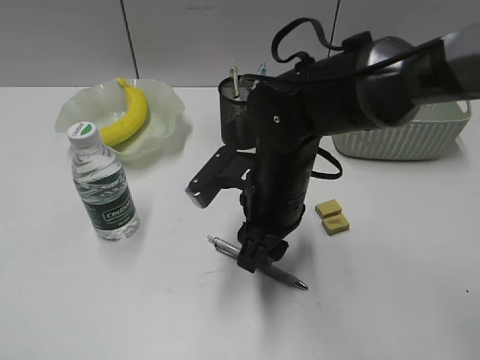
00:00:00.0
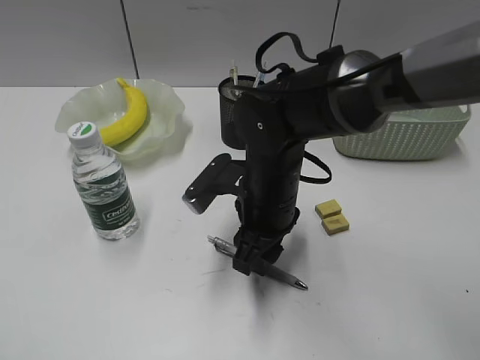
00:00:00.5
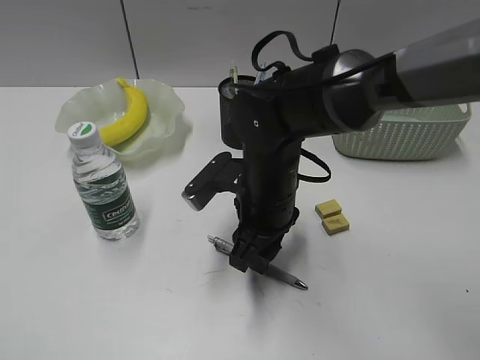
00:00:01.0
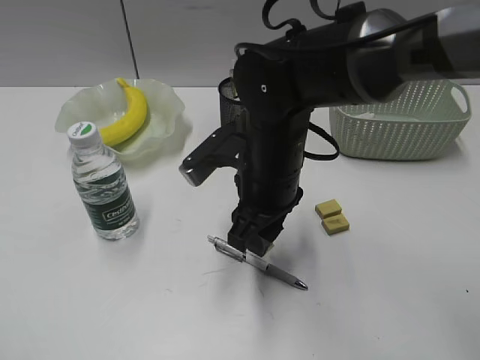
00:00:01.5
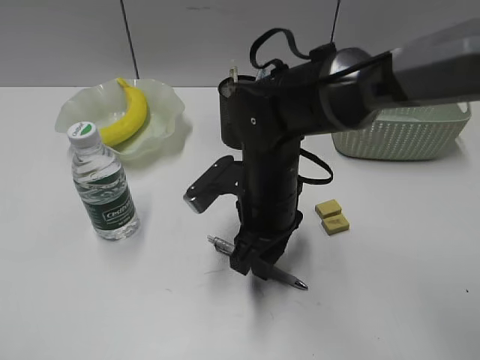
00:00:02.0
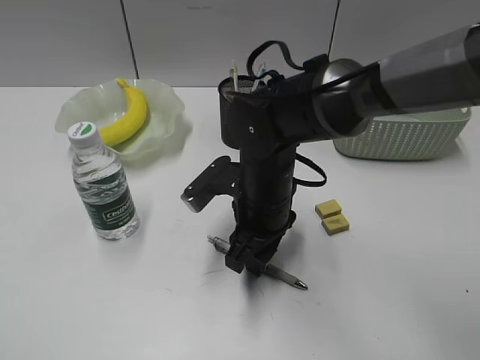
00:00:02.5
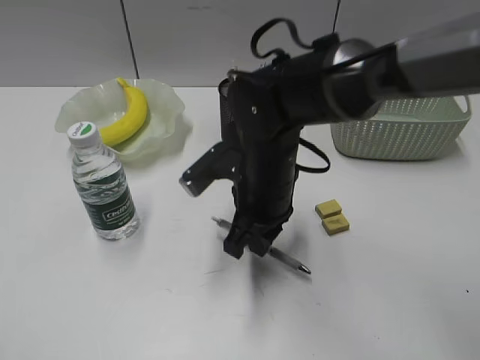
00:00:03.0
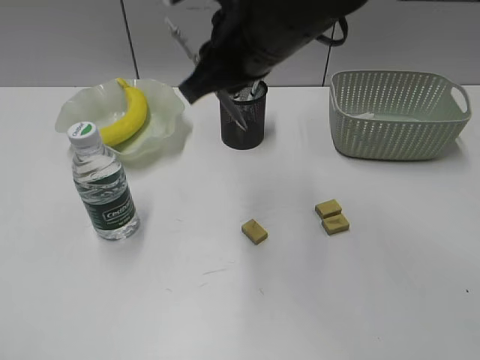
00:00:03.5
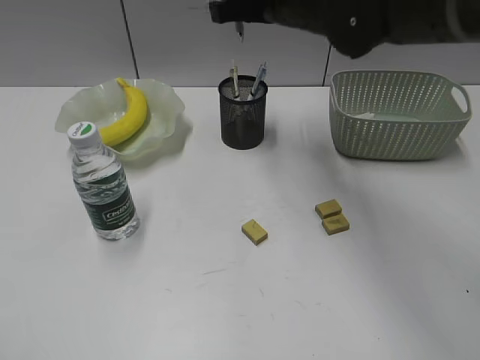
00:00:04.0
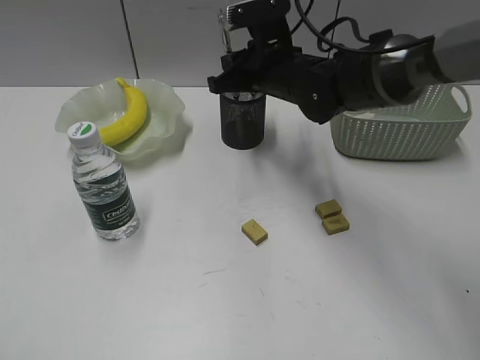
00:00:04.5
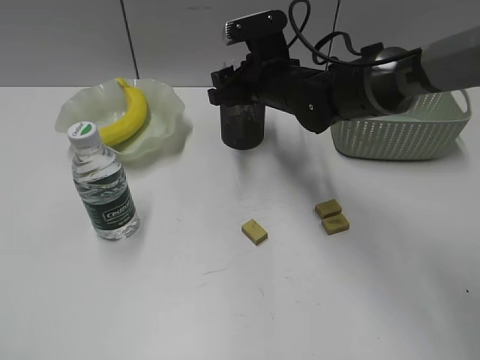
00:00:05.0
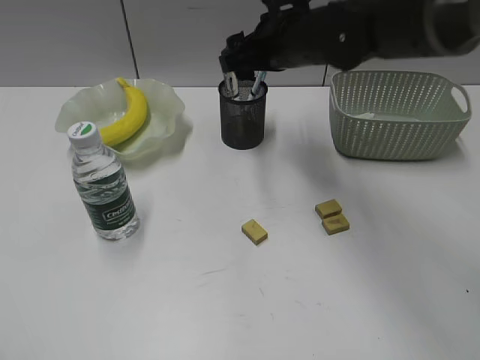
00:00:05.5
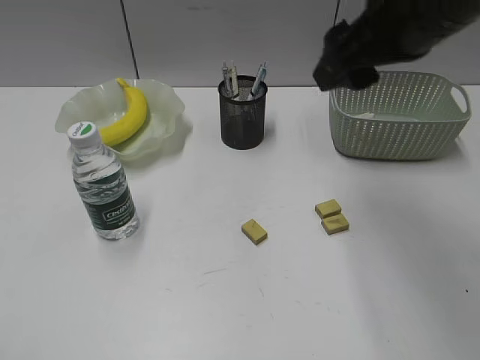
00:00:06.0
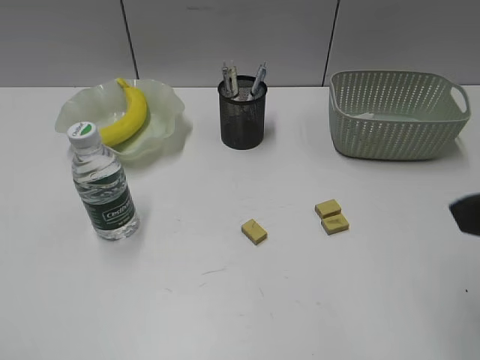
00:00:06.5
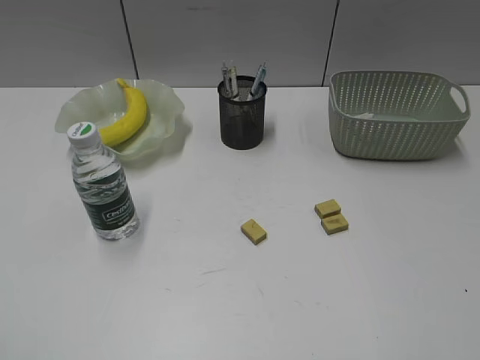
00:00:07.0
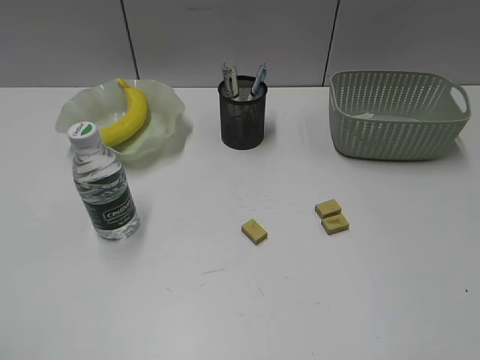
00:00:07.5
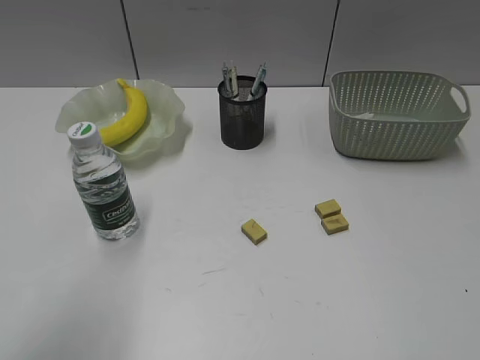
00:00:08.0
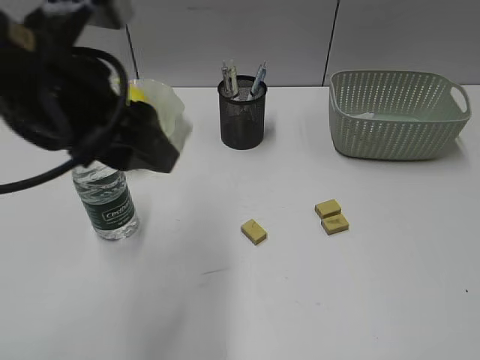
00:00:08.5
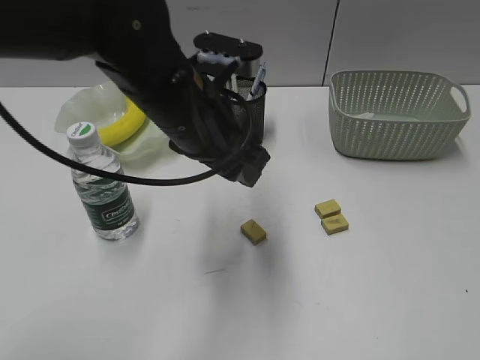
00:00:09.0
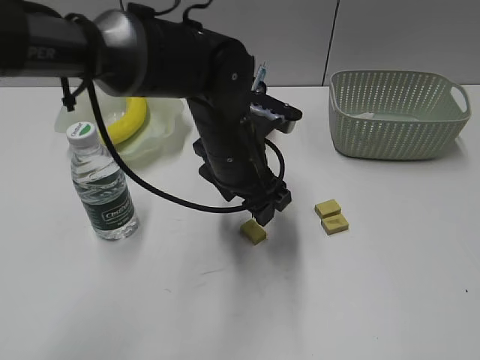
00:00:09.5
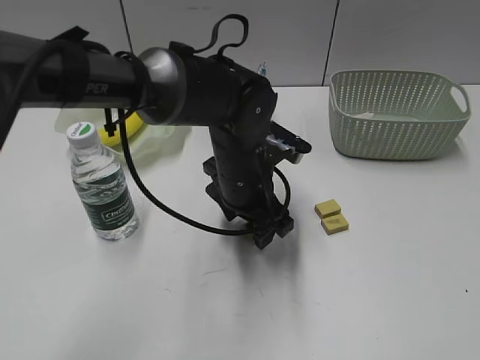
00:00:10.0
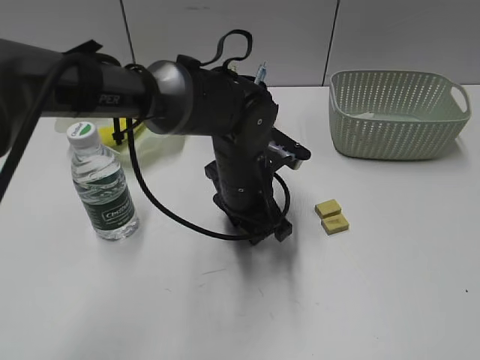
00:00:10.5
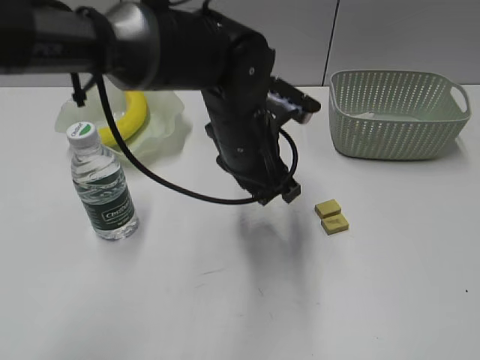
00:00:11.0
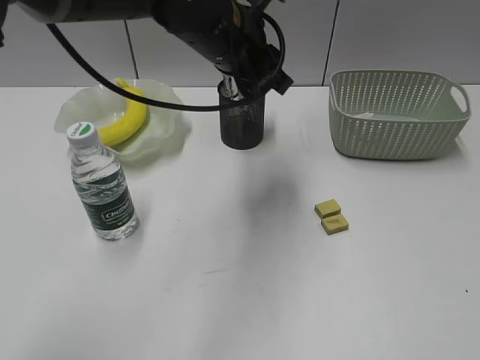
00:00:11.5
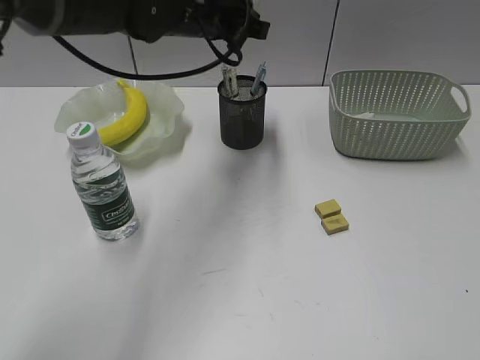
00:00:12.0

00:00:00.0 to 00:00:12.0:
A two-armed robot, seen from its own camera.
Step, 00:00:00.0 to 00:00:02.5: Grasp the gray pen with right gripper.
Step, 00:00:03.0 to 00:00:05.0: Place the gray pen in pen holder with right gripper.
Step, 00:00:05.5 to 00:00:10.5: Grasp the eraser with left gripper.
00:00:00.0 to 00:00:02.0: There are only small adjustments of the grippers.
00:00:02.0 to 00:00:04.0: The right gripper is displaced upward and forward by roughly 20 cm, and closes.
00:00:04.0 to 00:00:06.0: The right gripper is displaced backward and to the right by approximately 15 cm, reaches roughly 10 cm downward, then returns, and opens its fingers.
00:00:06.0 to 00:00:08.0: The left gripper travels forward and to the right by some 15 cm. The right gripper moves backward and to the right, about 35 cm.
00:00:08.0 to 00:00:10.0: The left gripper travels to the right, forward and downward by about 40 cm, and opens.
00:00:10.0 to 00:00:12.0: The left gripper moves upward, forward and to the left, some 20 cm, and closes its fingers.

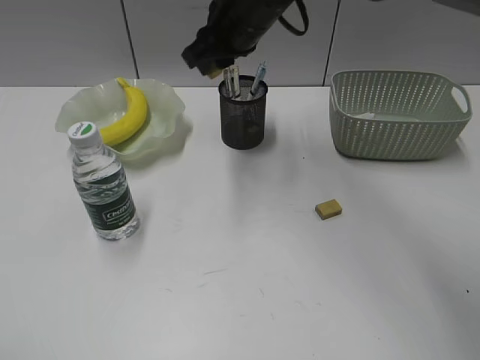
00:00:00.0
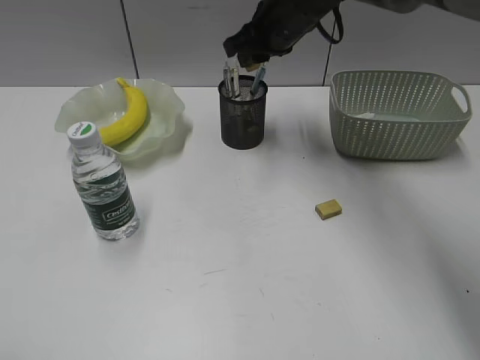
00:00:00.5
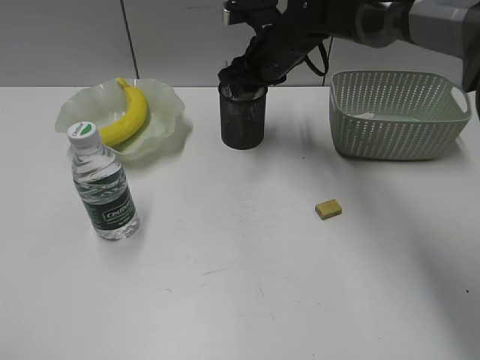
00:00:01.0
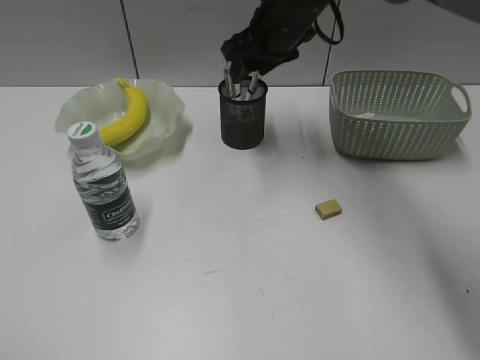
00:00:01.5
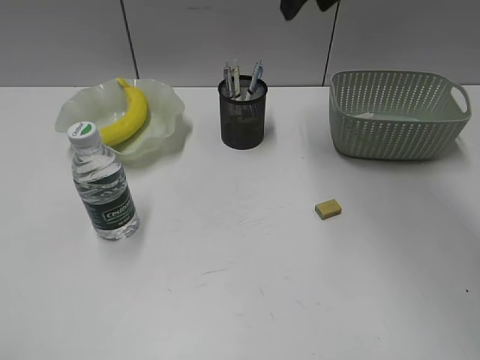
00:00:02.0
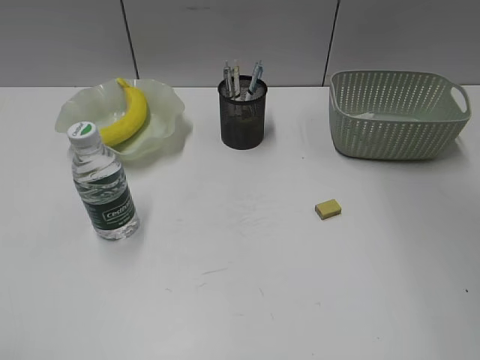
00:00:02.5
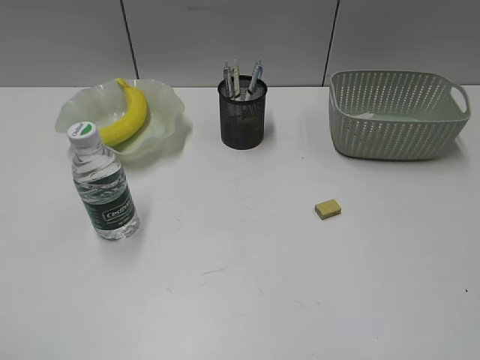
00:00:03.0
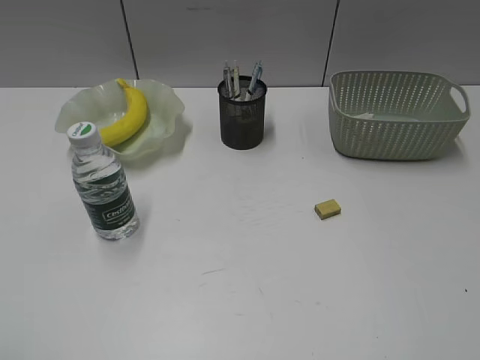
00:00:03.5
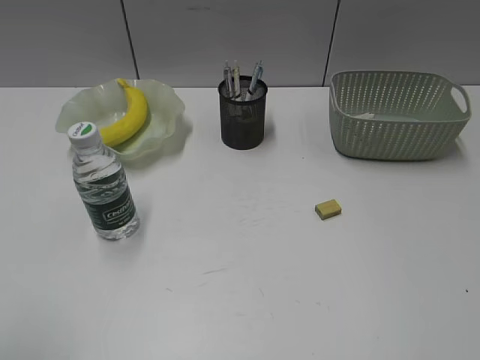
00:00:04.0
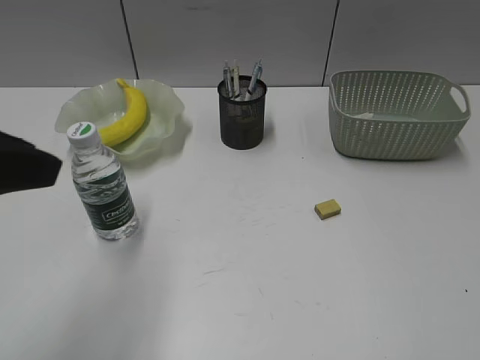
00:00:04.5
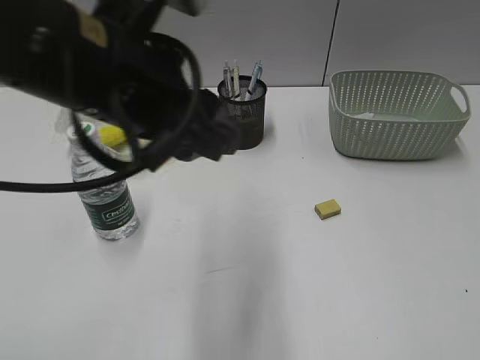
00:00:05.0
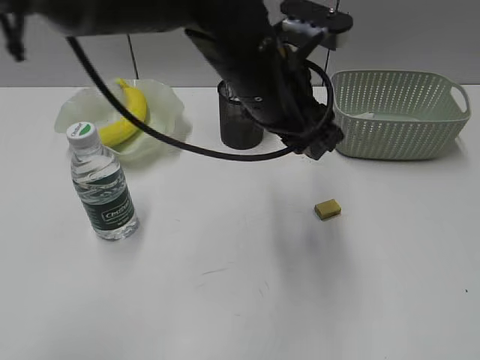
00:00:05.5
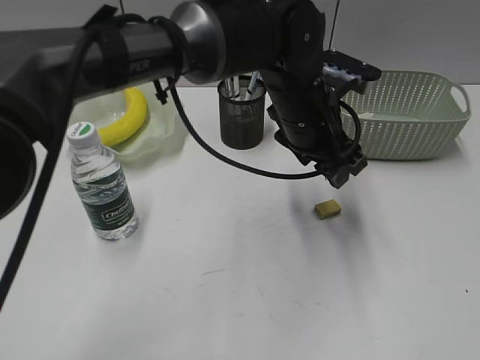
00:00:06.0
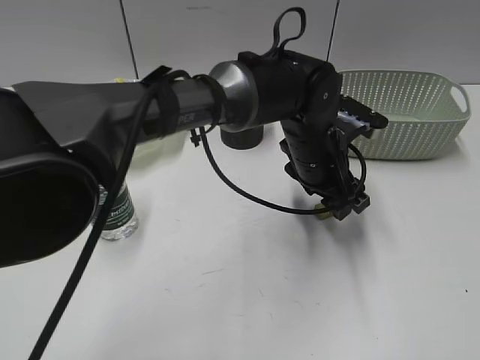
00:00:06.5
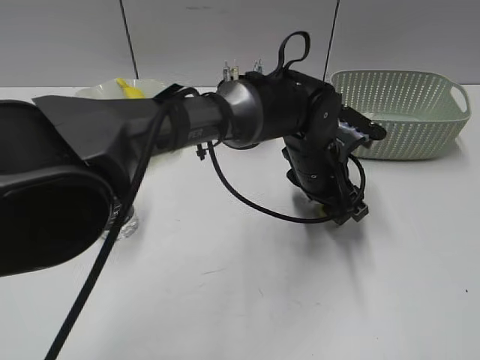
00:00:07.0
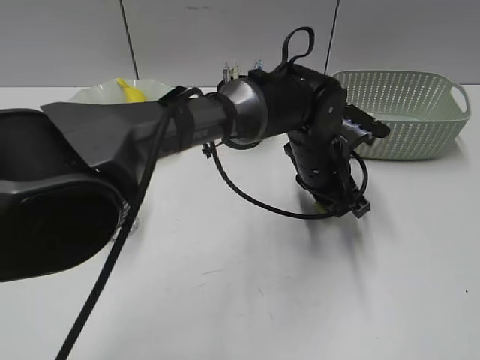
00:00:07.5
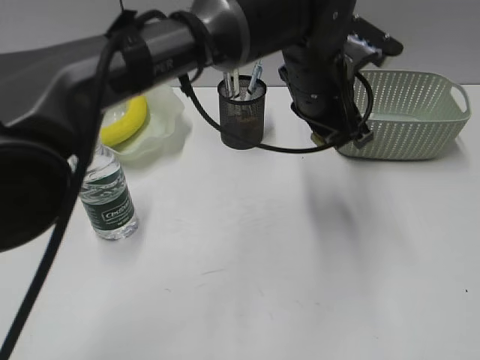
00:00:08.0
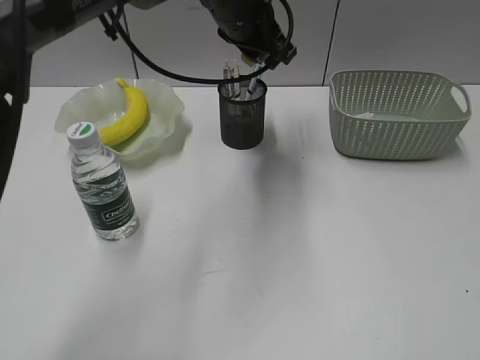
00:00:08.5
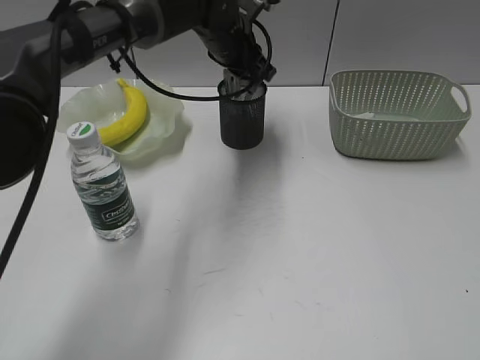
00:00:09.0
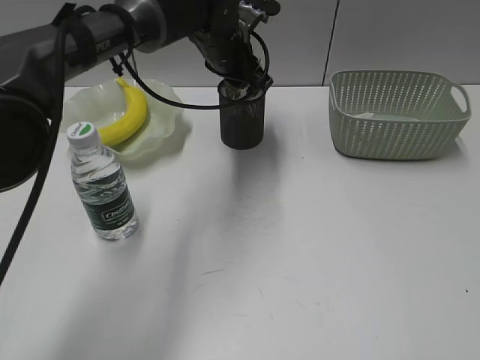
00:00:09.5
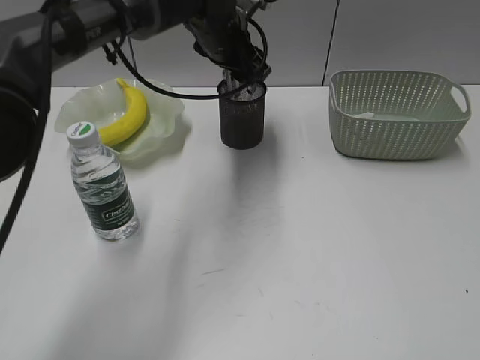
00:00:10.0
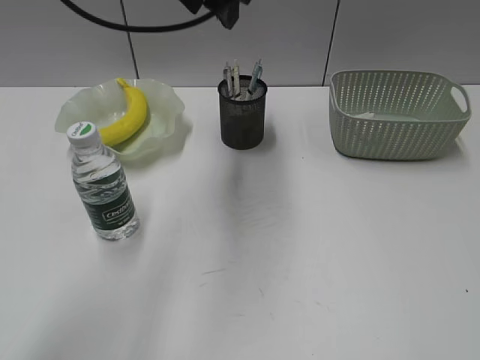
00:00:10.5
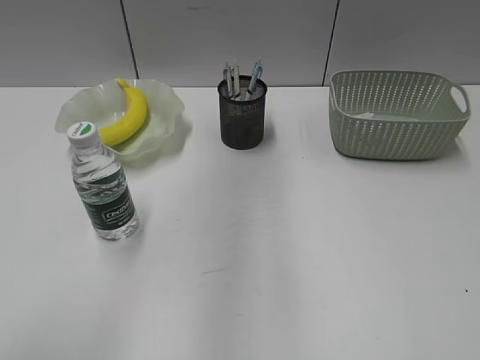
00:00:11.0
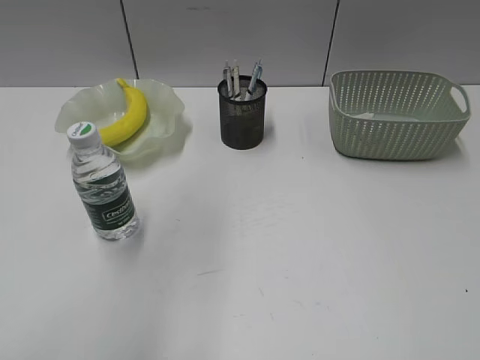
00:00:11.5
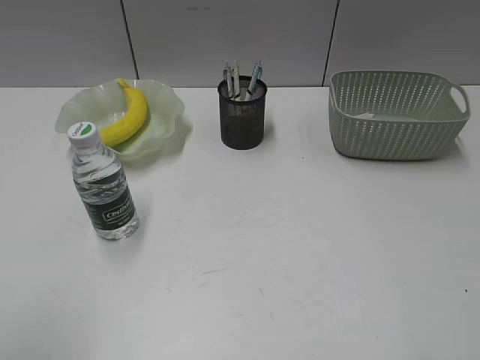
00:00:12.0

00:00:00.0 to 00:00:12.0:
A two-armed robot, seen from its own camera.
Step, 00:00:00.0 to 00:00:01.0: Place the eraser in pen holder with right gripper.
Step, 00:00:01.5 to 00:00:07.0: Grasp the eraser with left gripper.
Step, 00:00:07.5 to 00:00:09.5: Place the eraser in pen holder with left gripper.
00:00:00.0 to 00:00:02.0: The right gripper goes some 15 cm upward and to the right, and opens.
00:00:02.0 to 00:00:04.0: The right gripper moves backward and to the right, about 50 cm.
00:00:04.0 to 00:00:06.0: The left gripper heads to the right and forward, covering about 50 cm, and opens its fingers.
00:00:06.0 to 00:00:08.0: The left gripper goes downward and returns, approximately 10 cm each way, and closes up.
00:00:08.0 to 00:00:10.0: The left gripper goes about 15 cm forward and to the left, and opens up.
00:00:10.0 to 00:00:12.0: The left gripper moves backward, to the left and upward, some 50 cm.

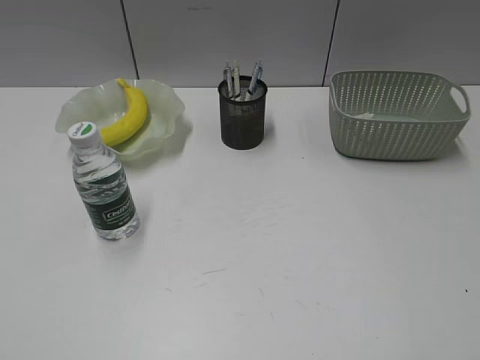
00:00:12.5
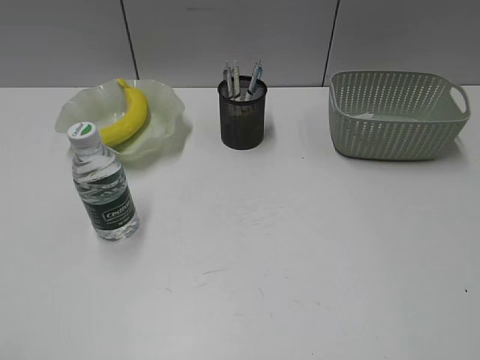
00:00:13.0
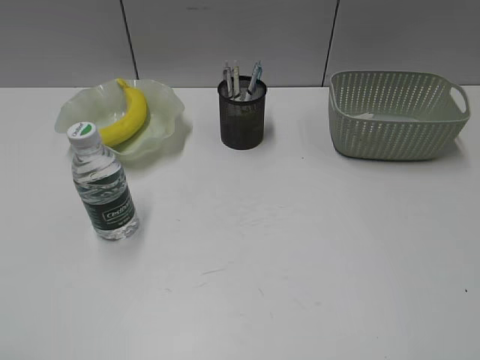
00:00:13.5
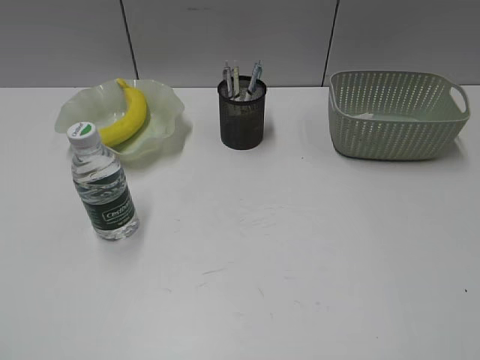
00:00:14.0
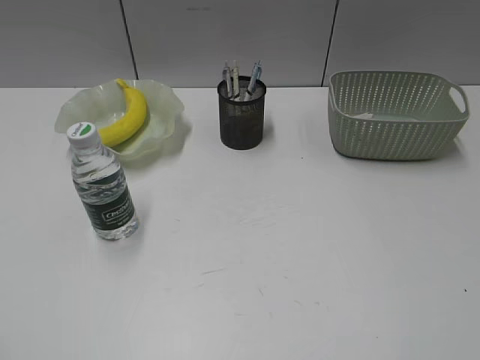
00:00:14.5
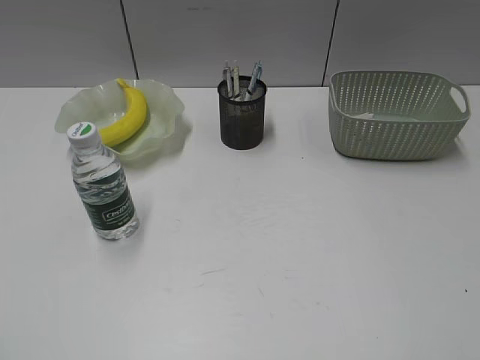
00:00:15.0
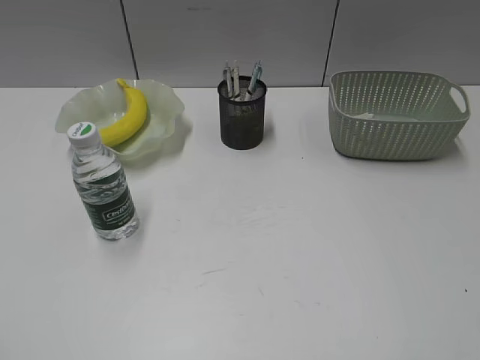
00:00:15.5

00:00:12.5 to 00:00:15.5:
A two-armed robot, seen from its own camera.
00:00:14.0 to 00:00:15.5: Both grippers stay put.
